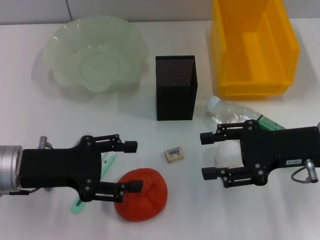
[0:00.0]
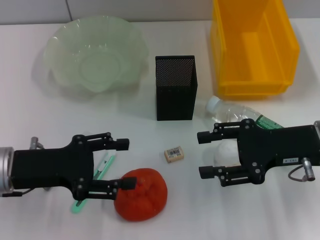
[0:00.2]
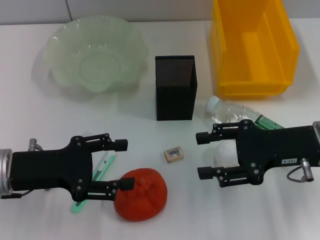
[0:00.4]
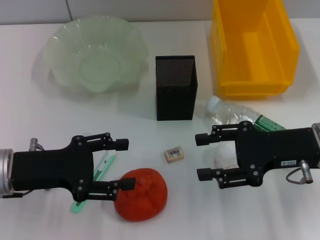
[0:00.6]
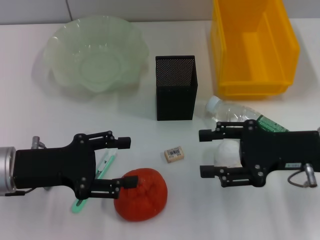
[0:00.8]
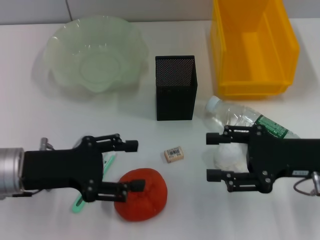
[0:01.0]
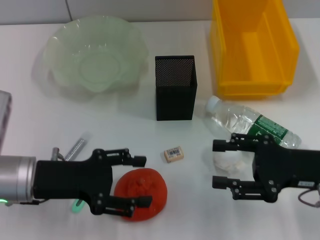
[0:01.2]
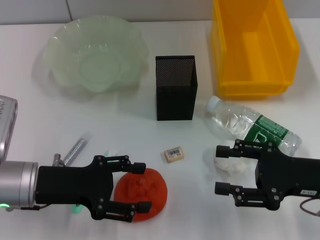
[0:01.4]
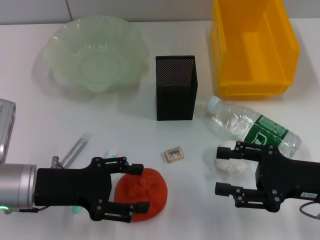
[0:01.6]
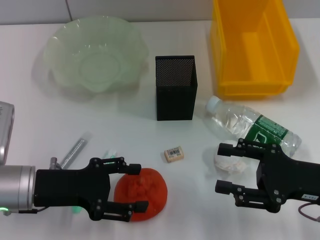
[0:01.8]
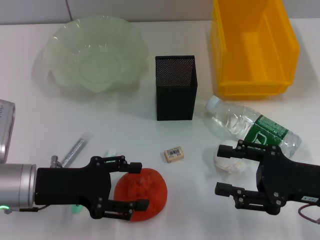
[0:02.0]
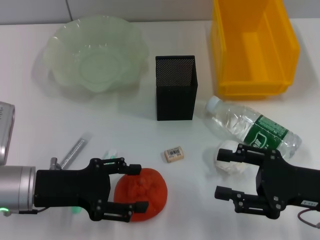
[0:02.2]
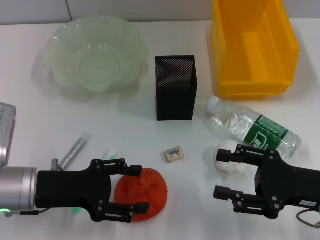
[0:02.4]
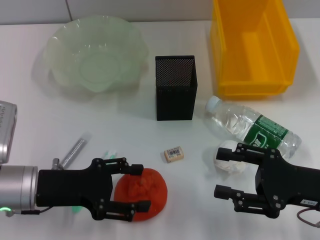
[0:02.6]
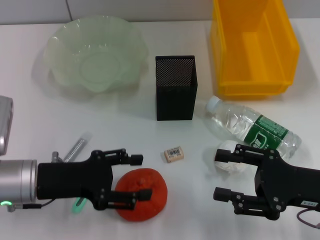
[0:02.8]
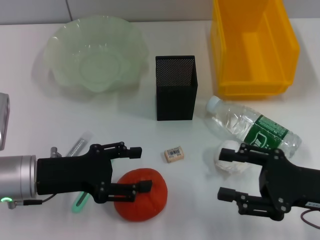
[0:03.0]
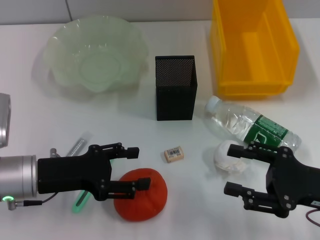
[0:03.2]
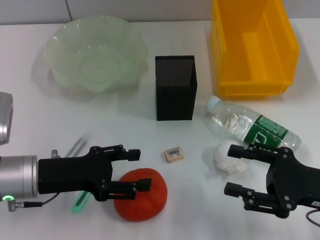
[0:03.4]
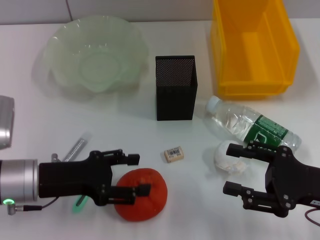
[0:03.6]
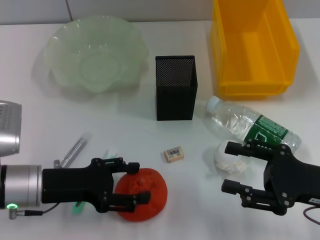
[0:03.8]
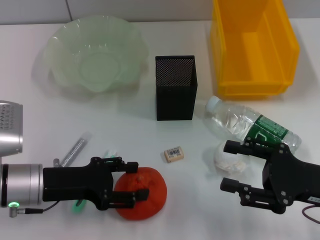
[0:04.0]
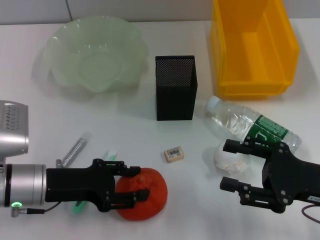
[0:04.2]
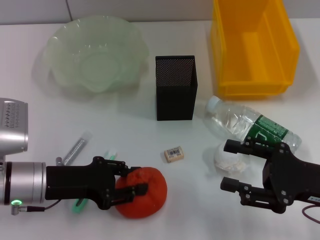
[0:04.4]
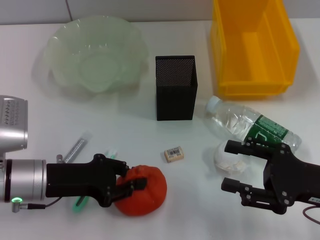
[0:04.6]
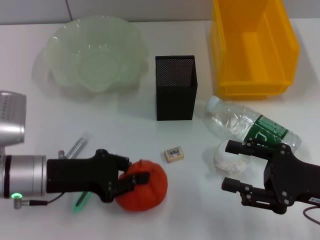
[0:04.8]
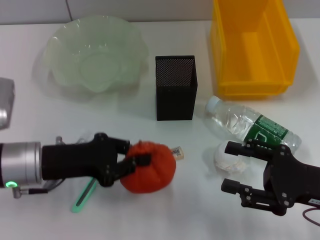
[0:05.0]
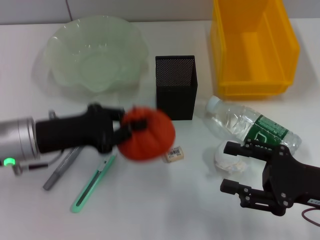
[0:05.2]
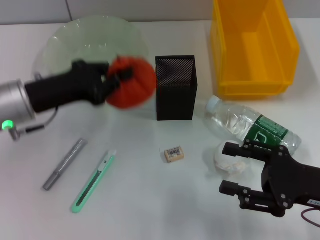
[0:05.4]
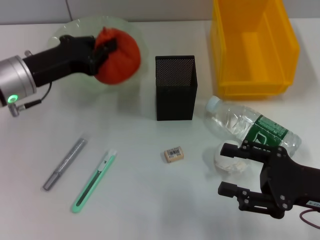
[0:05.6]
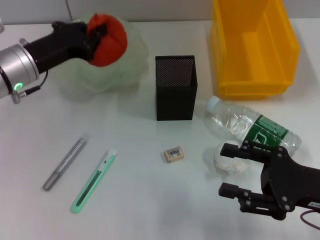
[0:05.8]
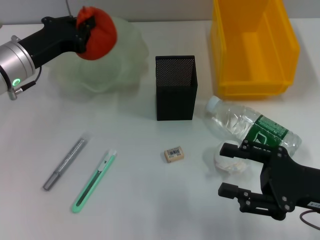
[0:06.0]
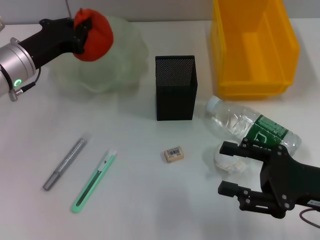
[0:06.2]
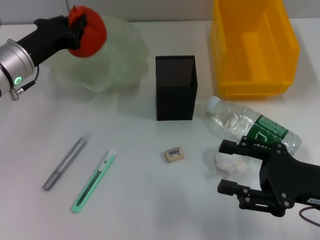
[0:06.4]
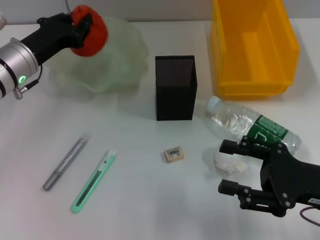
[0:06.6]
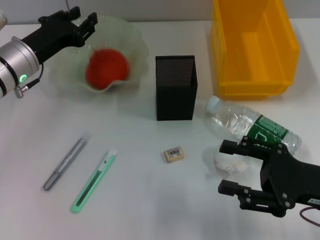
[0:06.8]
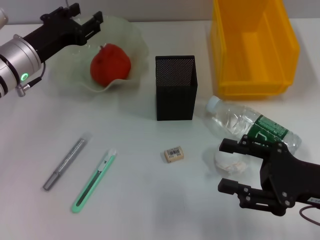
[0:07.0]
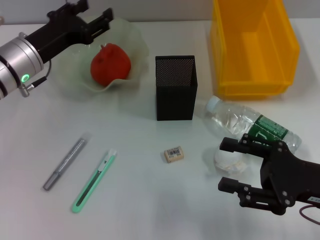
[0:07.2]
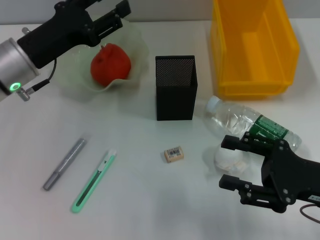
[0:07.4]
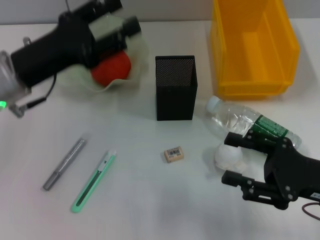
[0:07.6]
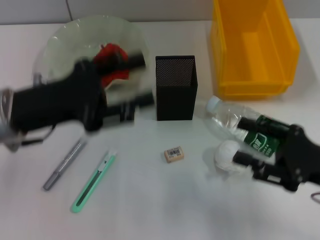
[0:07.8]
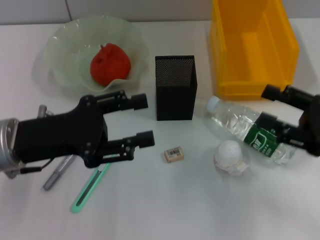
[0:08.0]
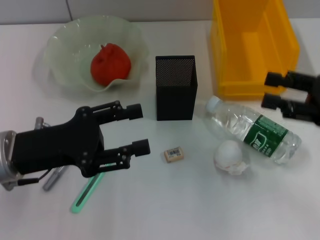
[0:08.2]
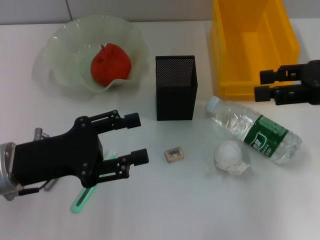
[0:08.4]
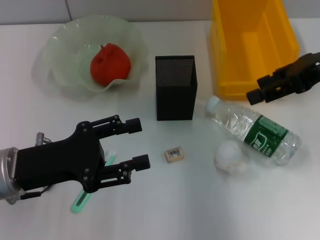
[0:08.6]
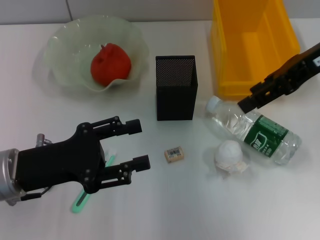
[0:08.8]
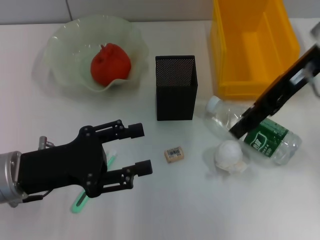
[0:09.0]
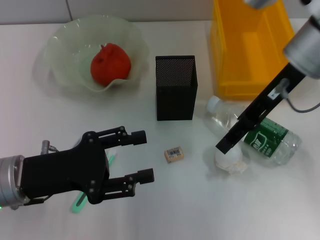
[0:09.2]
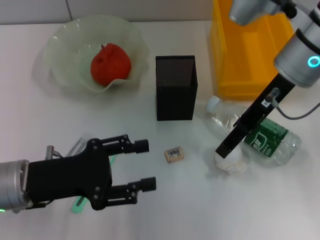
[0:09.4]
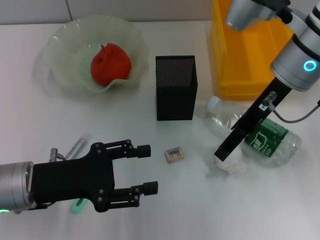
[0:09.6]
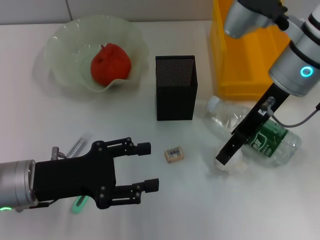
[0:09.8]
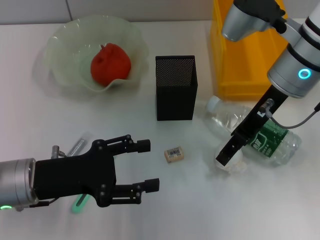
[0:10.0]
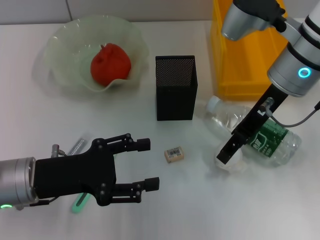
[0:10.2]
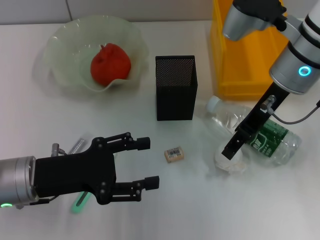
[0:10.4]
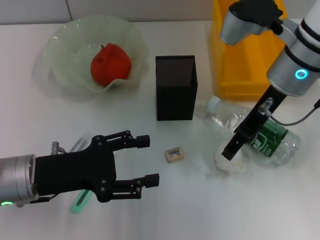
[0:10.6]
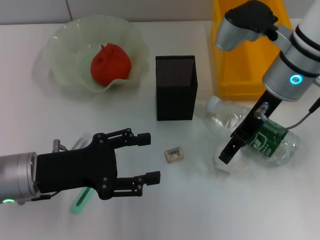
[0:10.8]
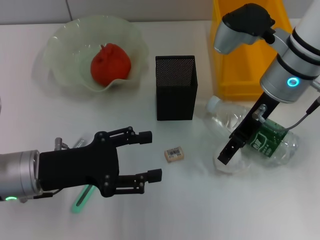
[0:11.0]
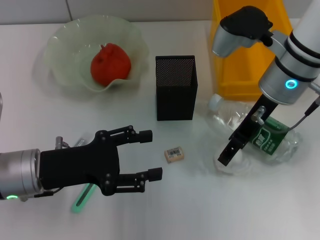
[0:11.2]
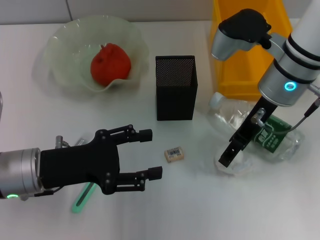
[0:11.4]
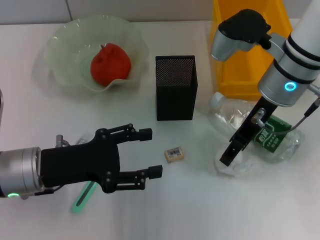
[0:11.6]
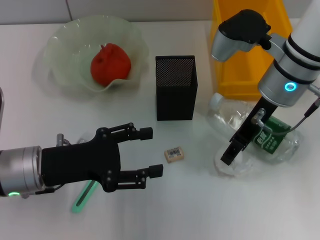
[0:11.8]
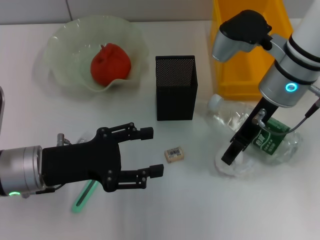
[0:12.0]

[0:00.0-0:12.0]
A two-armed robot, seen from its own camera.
Step, 0:00.0 to 0:04.6: Grab the orange with the left hand.
Step, 0:04.8 to 0:07.0: Place the orange into the fruit bowl with the left hand.
Step, 0:07.2 to 0:11.8: Grab the paper ball with the right hand.
0:00.0 to 0:01.6: The right gripper goes roughly 5 cm backward.
0:01.6 to 0:04.4: The grippers move only a little.
0:04.4 to 0:06.0: The left gripper shifts about 15 cm forward and upward, and closes.
0:06.0 to 0:07.6: The left gripper goes approximately 5 cm backward, and opens.
0:07.6 to 0:09.0: The left gripper goes approximately 10 cm backward and downward; the right gripper travels upward, forward and to the left by roughly 25 cm.
0:09.0 to 0:10.4: The right gripper heads downward, covering roughly 5 cm.
0:10.4 to 0:12.0: The grippers stay close to where they were, moving slightly.

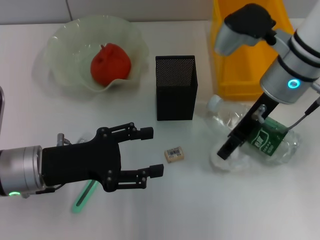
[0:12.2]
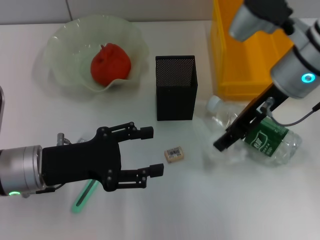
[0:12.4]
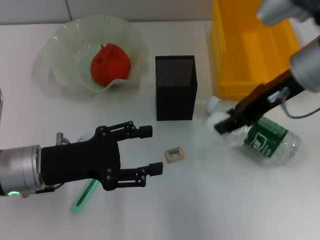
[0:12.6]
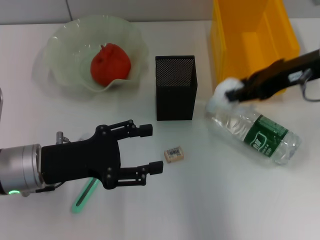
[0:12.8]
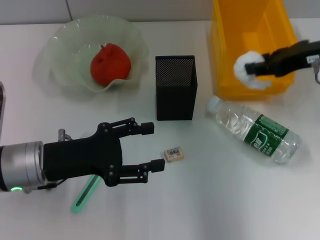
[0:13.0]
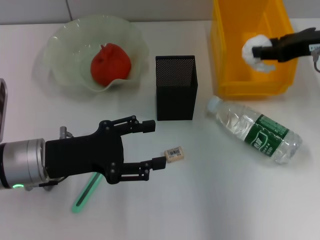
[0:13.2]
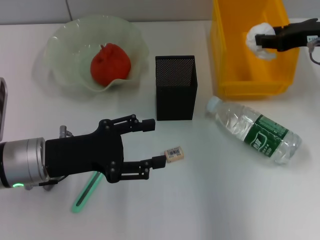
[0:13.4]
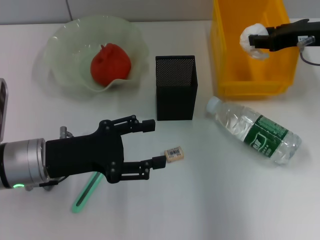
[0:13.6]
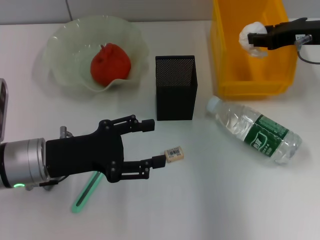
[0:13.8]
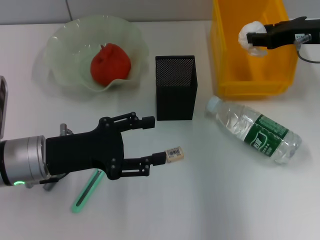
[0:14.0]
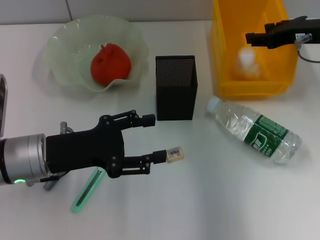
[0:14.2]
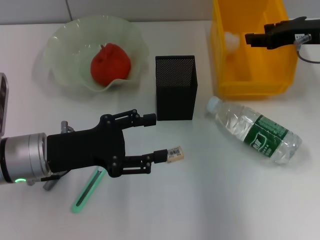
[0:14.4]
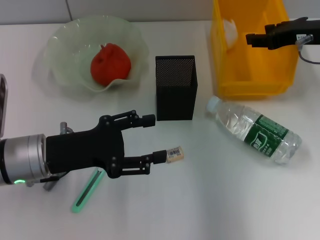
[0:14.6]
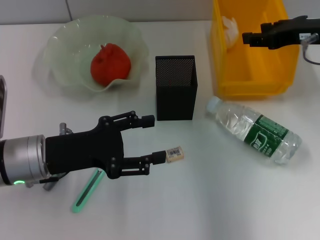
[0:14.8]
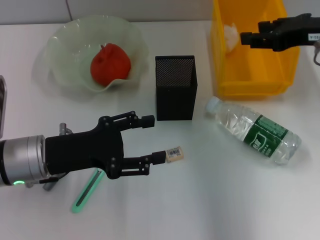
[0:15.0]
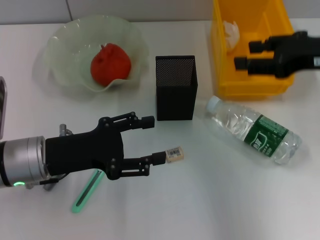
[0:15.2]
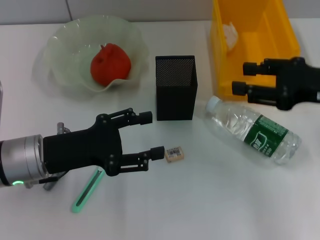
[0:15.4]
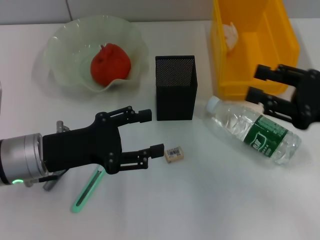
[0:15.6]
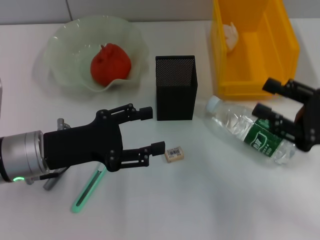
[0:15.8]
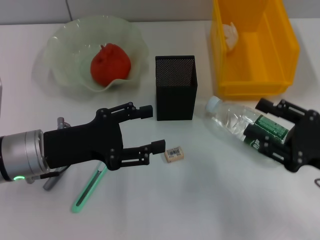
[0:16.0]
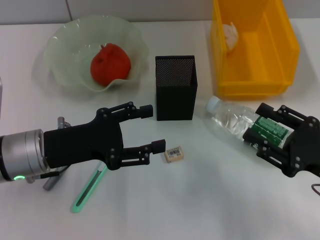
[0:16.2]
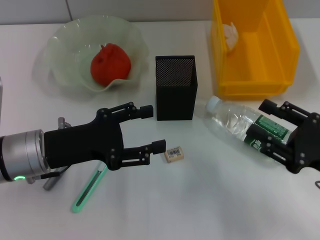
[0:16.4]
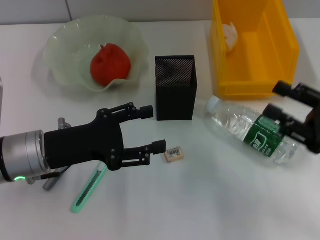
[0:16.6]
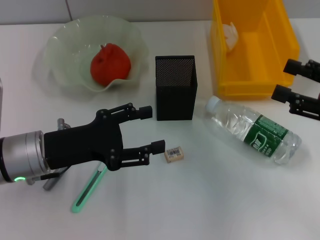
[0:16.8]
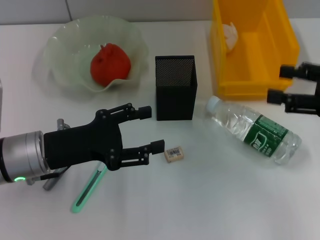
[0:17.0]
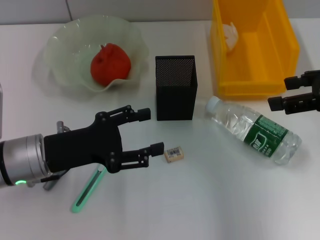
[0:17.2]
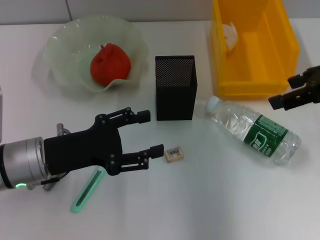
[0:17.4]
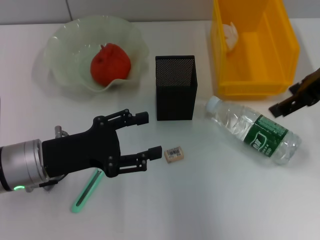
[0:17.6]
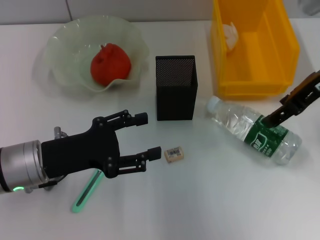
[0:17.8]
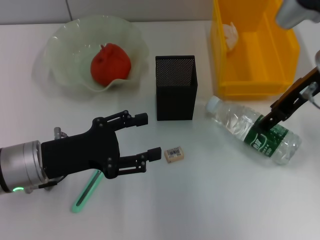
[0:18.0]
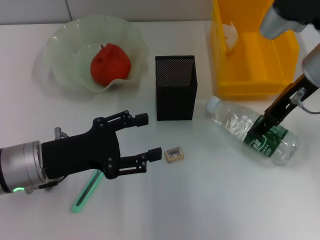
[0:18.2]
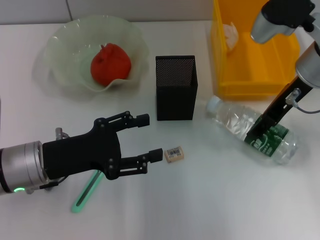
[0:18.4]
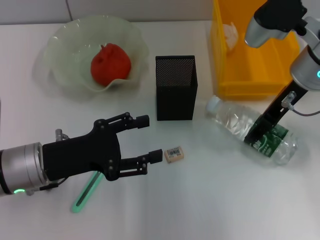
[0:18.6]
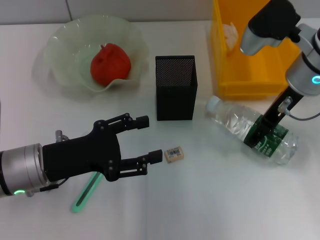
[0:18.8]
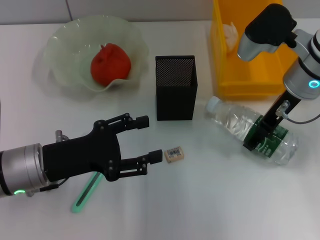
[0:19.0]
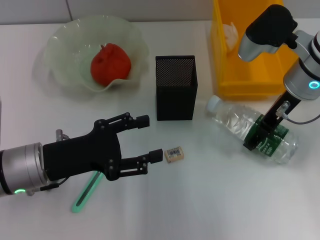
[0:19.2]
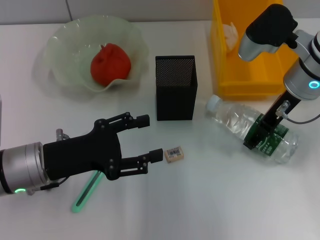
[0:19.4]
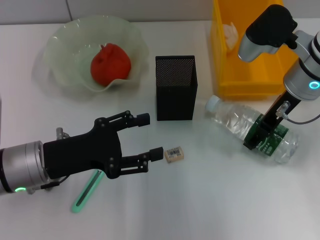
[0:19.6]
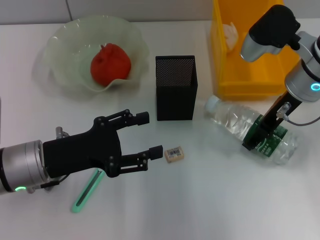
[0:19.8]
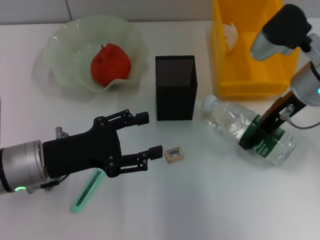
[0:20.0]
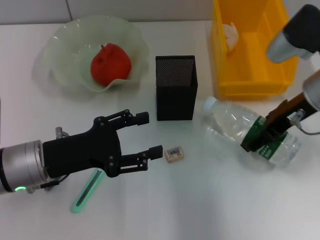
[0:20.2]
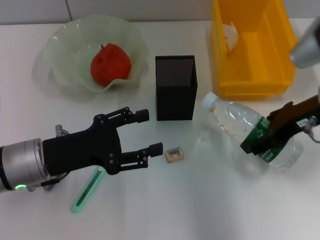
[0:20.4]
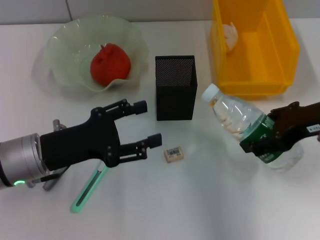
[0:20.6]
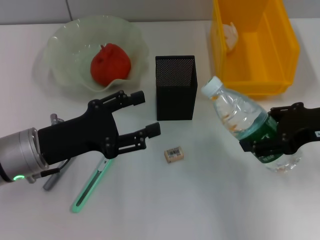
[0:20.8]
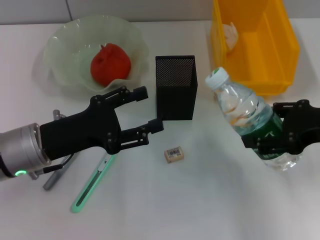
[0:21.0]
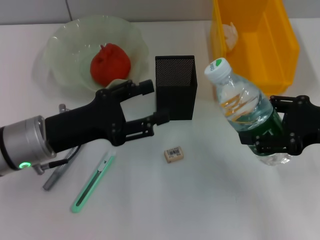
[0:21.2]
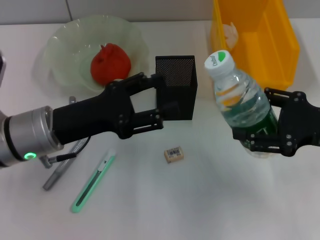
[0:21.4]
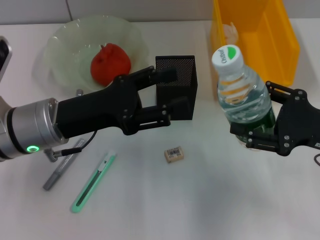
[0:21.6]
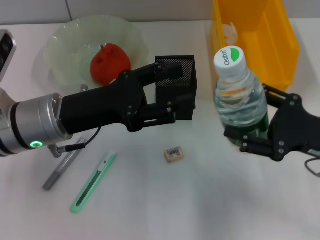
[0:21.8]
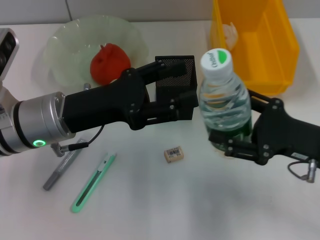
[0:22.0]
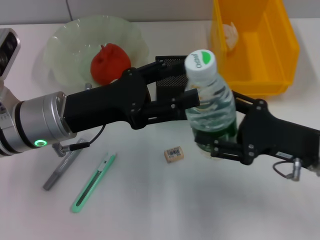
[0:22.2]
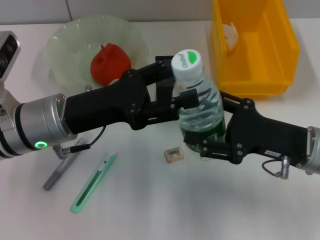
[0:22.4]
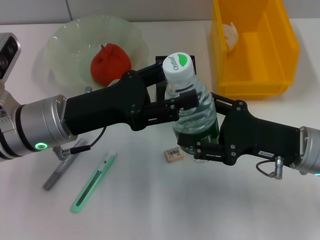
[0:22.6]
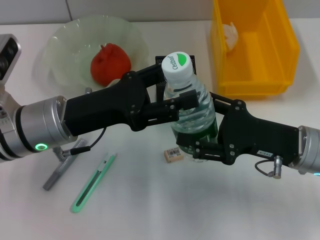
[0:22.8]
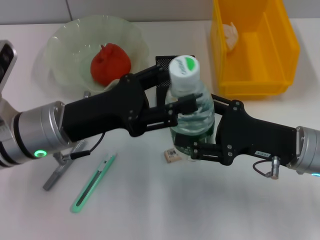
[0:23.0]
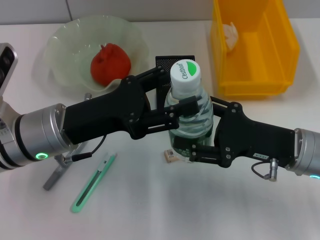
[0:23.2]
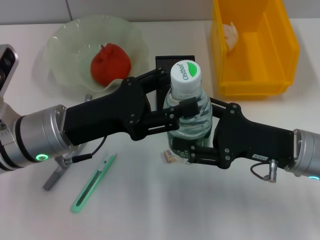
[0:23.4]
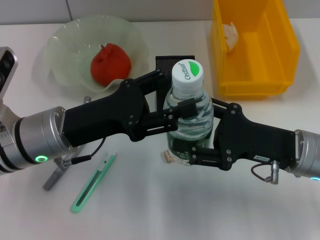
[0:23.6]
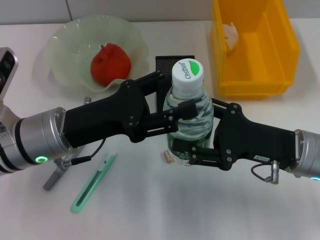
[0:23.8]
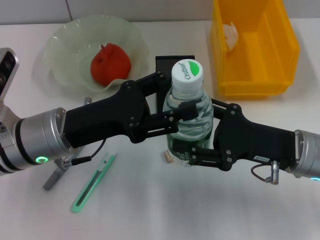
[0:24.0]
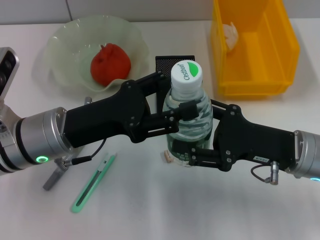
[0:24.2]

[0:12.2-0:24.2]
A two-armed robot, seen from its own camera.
Step, 0:12.2 to 0:14.4: Place the paper ball into the trash can with the right hand.
Step, 0:14.6 to 0:19.6: Grab the water bottle with the right hand.
0:12.2 to 0:13.8: The right gripper heads to the right, covering some 10 cm.
0:13.8 to 0:15.2: The right gripper goes roughly 10 cm backward.
0:15.2 to 0:16.6: The right gripper moves downward and backward, approximately 15 cm.
0:16.6 to 0:18.2: The right gripper moves forward, to the left and upward, roughly 20 cm, and opens up.
0:18.2 to 0:19.8: The grippers make only small movements.
0:19.8 to 0:21.2: The right gripper moves backward and to the right, some 15 cm.
0:21.2 to 0:22.6: The right gripper is displaced downward and to the left by roughly 10 cm.
0:22.6 to 0:24.2: There are only small adjustments of the grippers.
